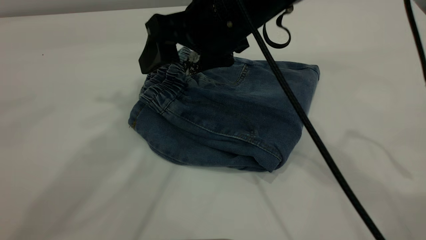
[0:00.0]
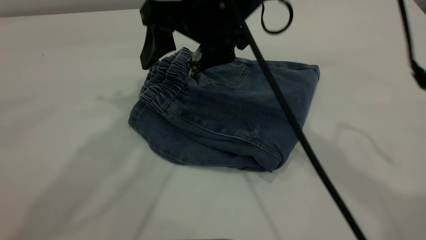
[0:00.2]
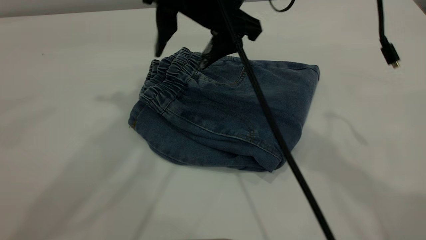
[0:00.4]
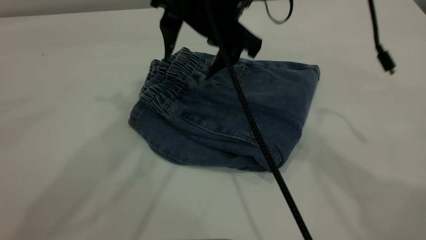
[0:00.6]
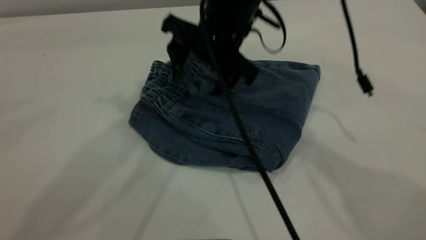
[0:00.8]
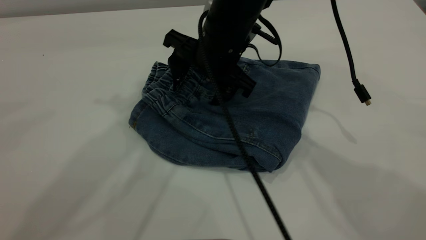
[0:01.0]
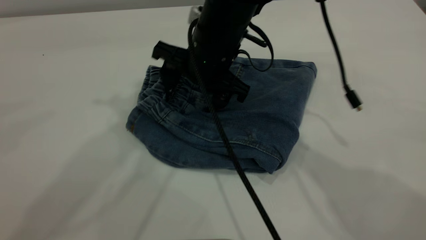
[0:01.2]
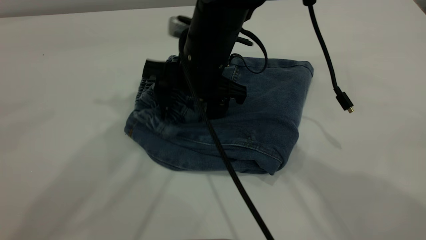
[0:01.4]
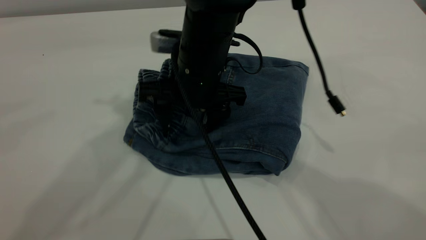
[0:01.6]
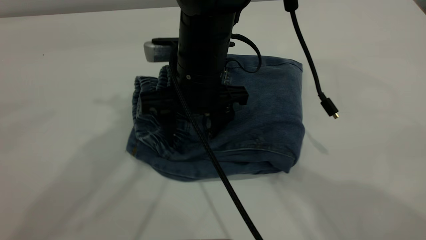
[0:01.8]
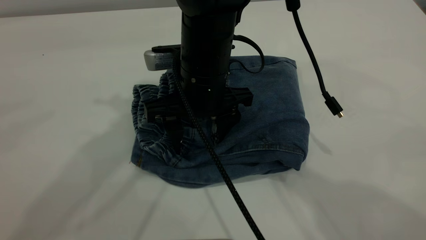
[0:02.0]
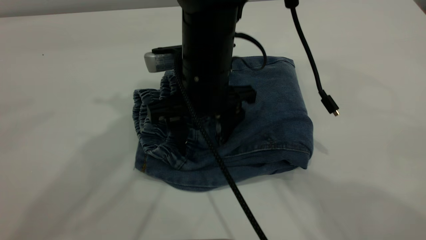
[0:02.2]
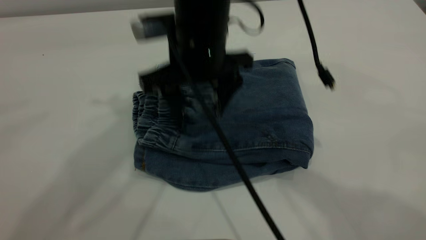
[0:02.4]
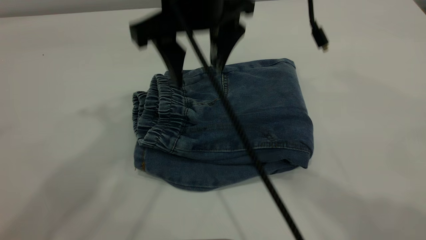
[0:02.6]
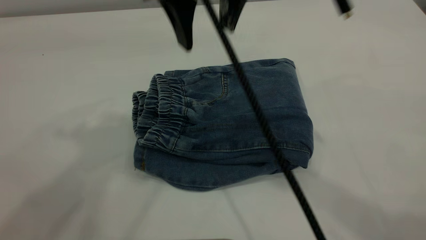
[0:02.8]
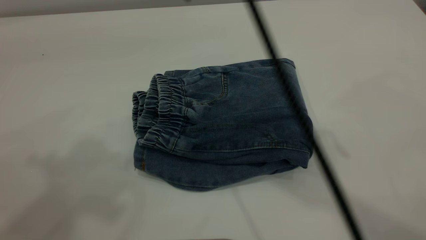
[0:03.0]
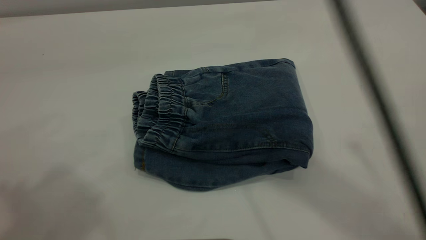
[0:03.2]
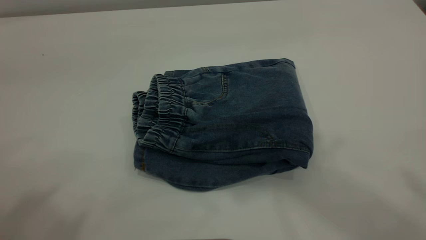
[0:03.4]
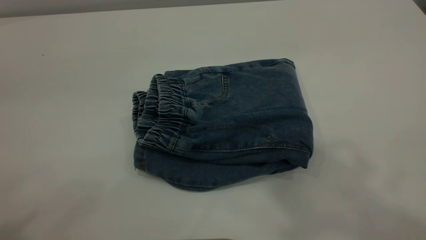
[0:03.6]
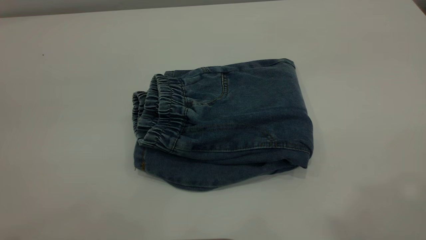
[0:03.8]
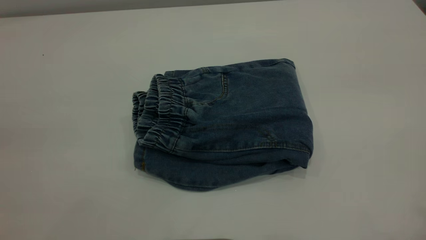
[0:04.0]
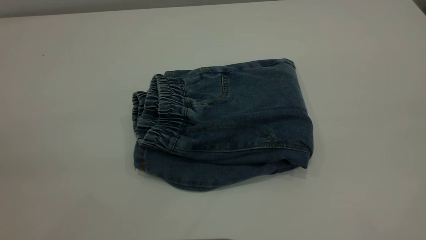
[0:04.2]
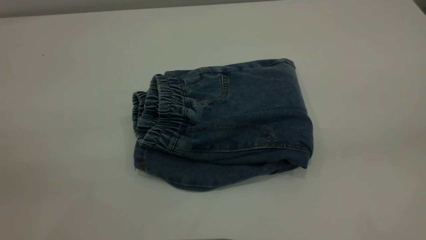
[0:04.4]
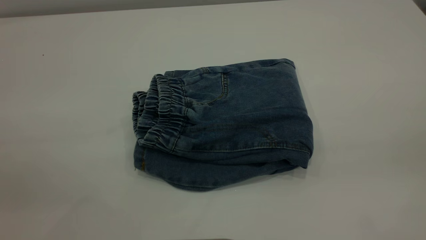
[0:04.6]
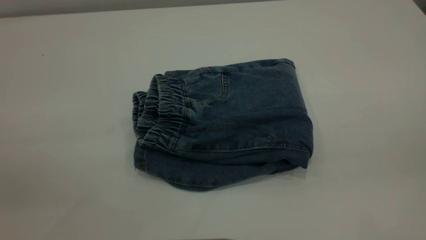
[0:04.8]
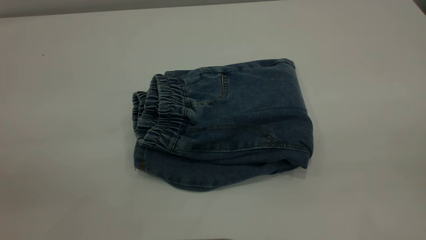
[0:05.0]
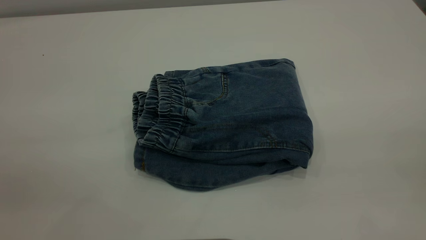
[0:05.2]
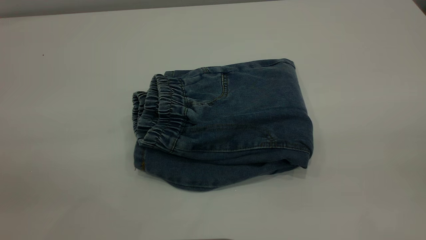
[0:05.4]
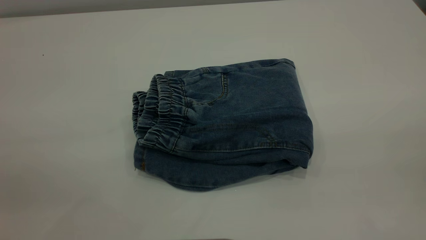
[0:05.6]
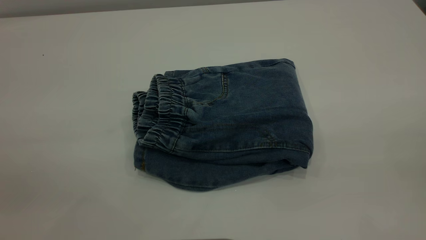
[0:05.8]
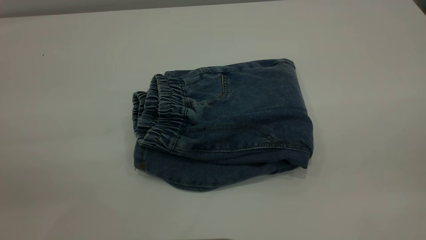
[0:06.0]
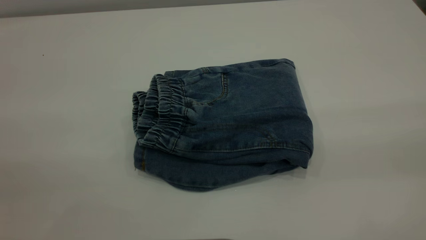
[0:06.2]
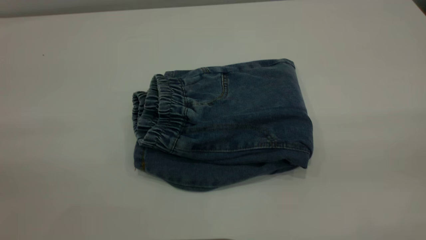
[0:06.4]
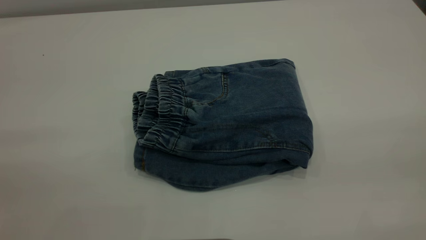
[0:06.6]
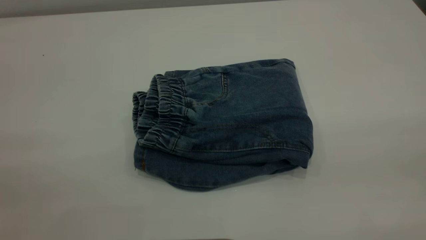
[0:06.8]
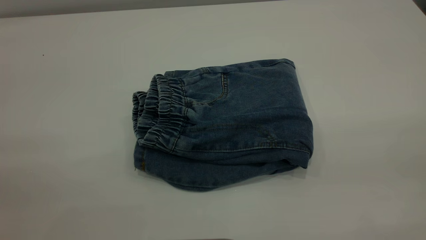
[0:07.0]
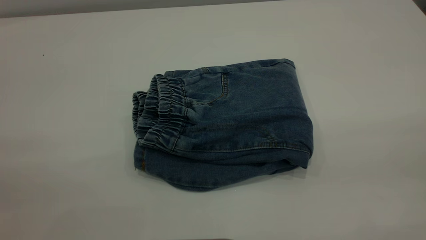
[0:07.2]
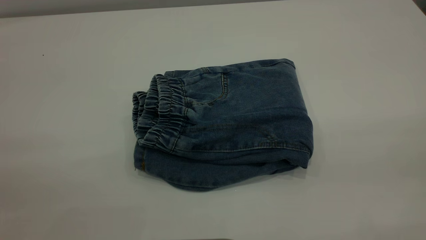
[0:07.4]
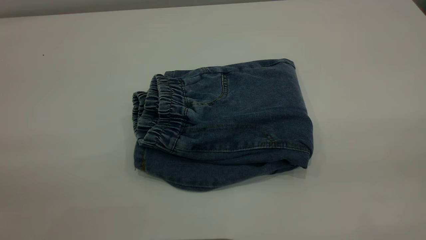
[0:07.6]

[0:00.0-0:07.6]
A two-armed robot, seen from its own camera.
0:00.0 to 0:01.6: The right gripper moves downward and to the left, approximately 10 cm.
0:01.6 to 0:03.0: The right gripper heads upward, covering some 25 cm; the left gripper travels backward, upward and to the left by some 20 cm.
0:03.0 to 0:04.6: The right gripper is displaced backward and to the right by some 35 cm, while the left gripper heads downward, backward and to the left, covering about 25 cm.

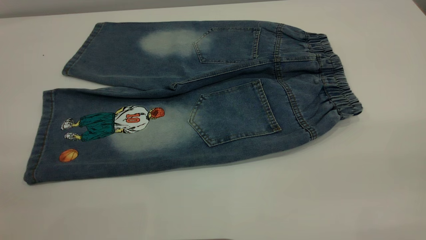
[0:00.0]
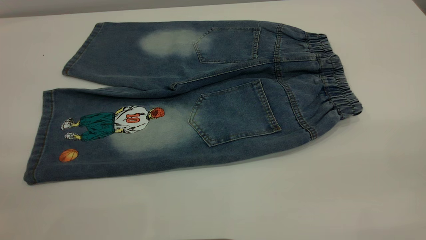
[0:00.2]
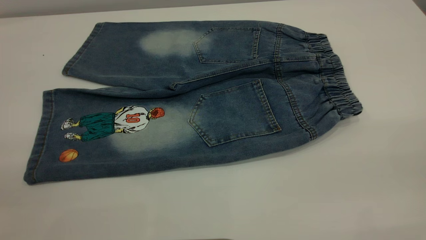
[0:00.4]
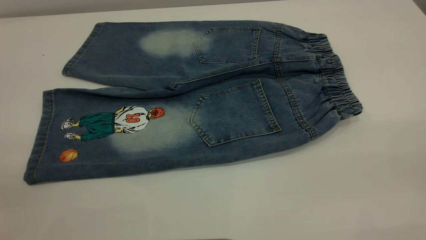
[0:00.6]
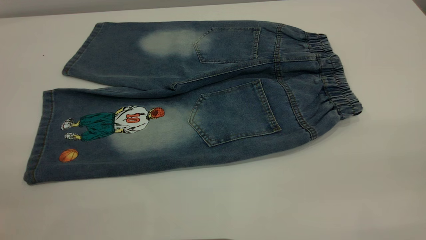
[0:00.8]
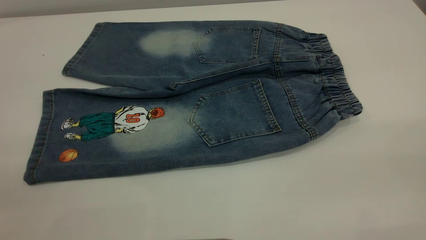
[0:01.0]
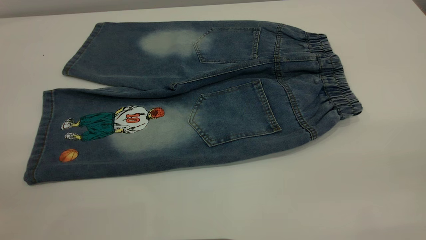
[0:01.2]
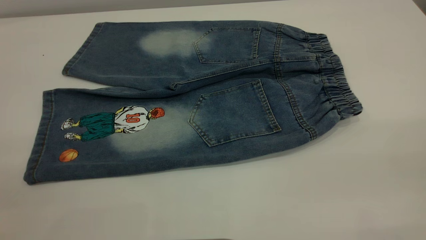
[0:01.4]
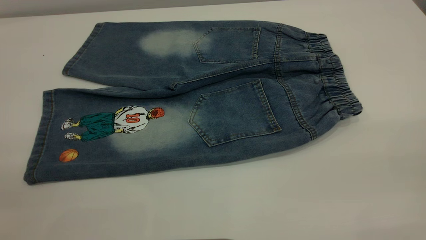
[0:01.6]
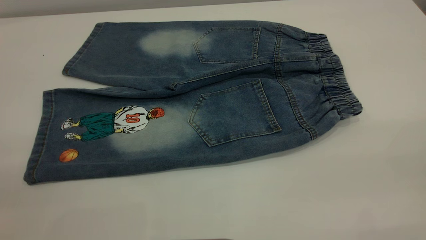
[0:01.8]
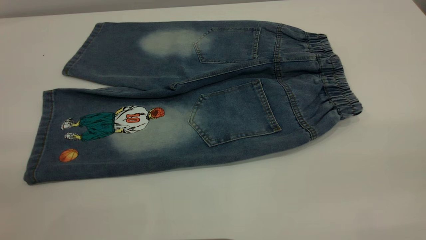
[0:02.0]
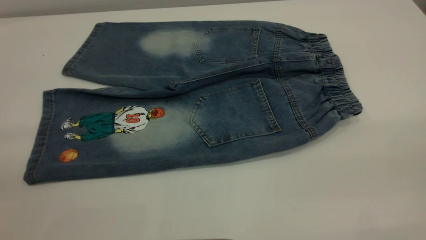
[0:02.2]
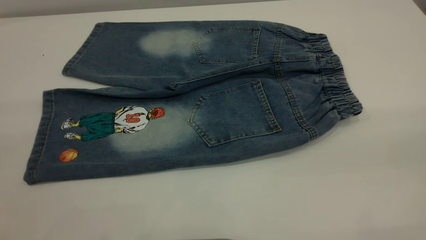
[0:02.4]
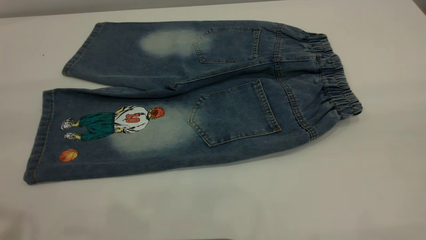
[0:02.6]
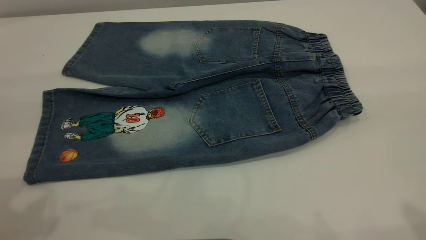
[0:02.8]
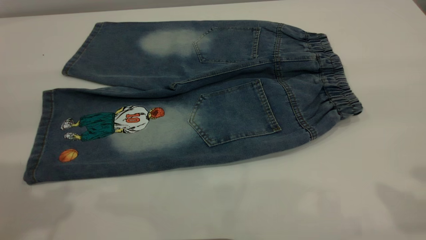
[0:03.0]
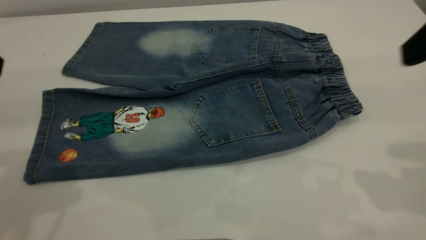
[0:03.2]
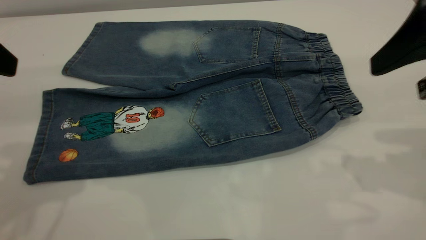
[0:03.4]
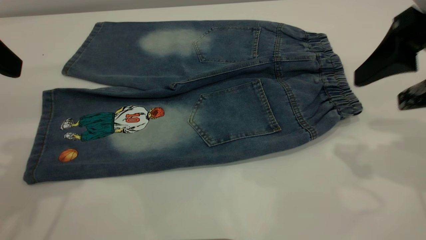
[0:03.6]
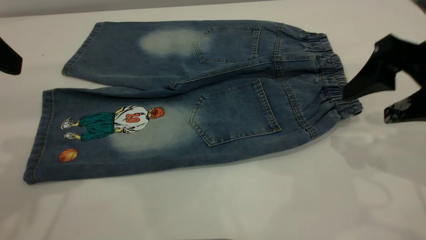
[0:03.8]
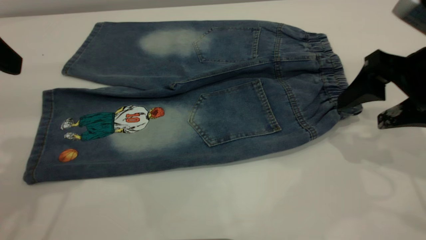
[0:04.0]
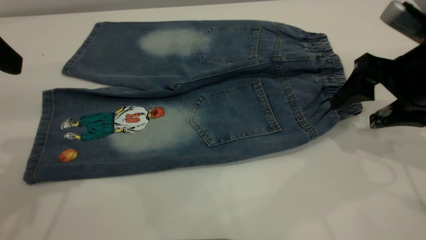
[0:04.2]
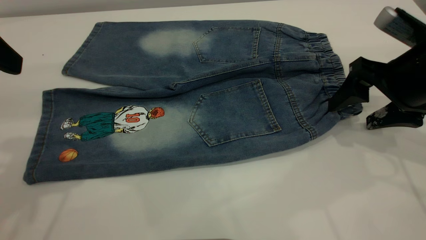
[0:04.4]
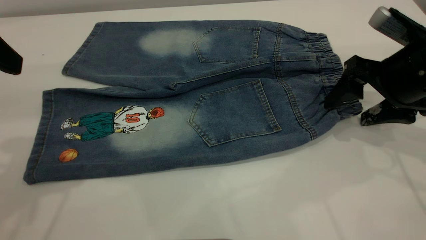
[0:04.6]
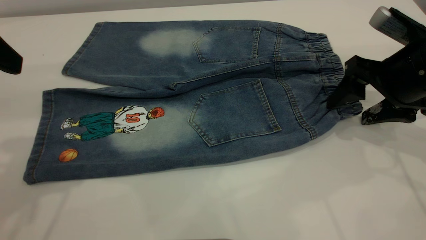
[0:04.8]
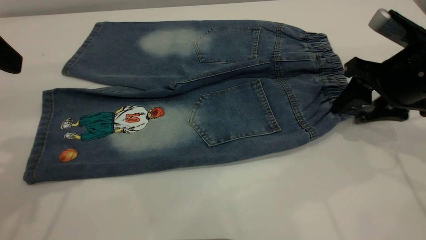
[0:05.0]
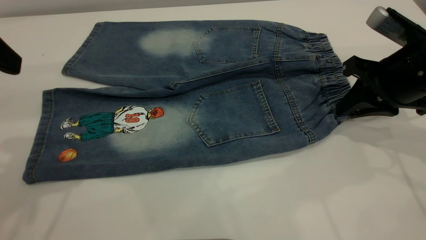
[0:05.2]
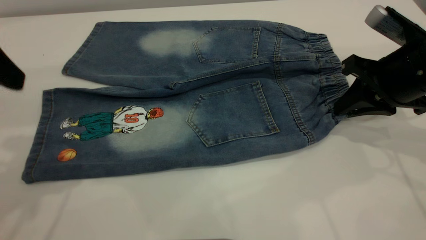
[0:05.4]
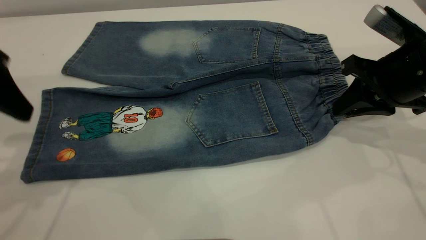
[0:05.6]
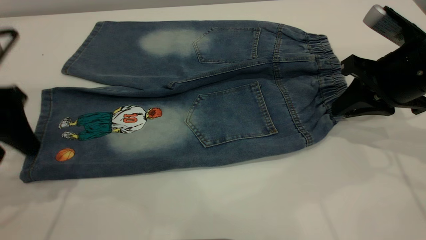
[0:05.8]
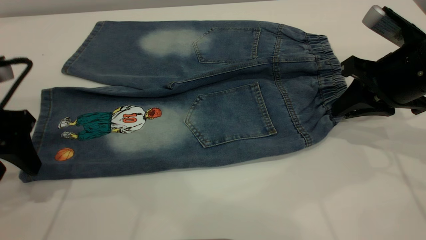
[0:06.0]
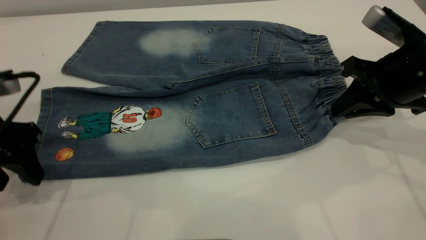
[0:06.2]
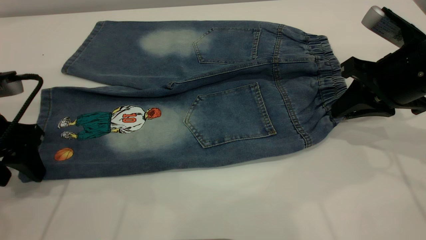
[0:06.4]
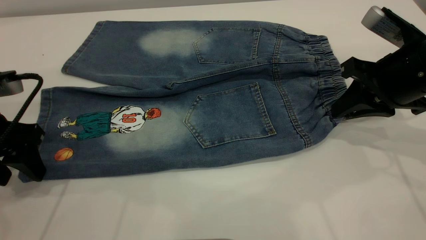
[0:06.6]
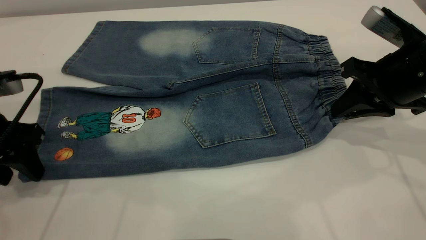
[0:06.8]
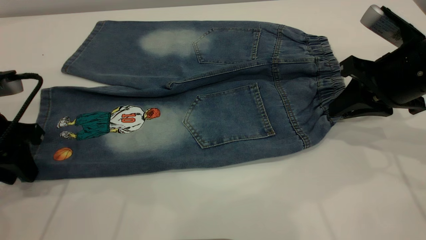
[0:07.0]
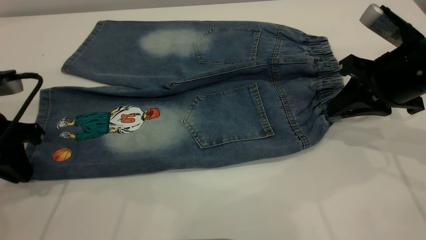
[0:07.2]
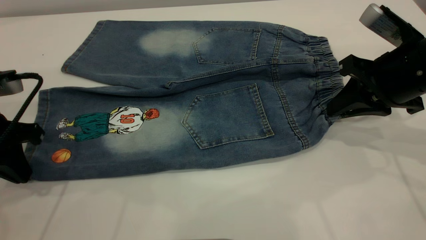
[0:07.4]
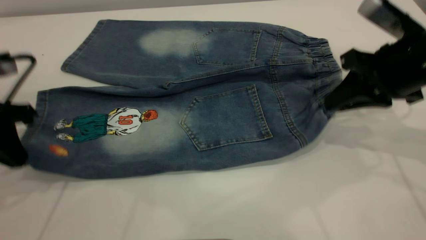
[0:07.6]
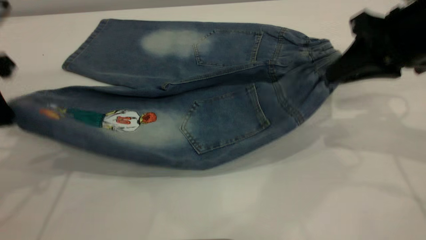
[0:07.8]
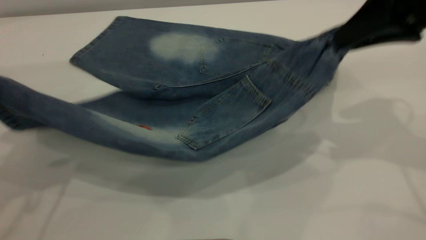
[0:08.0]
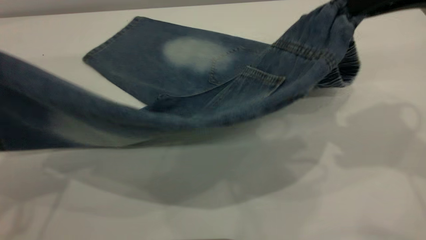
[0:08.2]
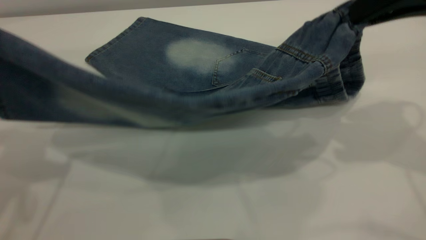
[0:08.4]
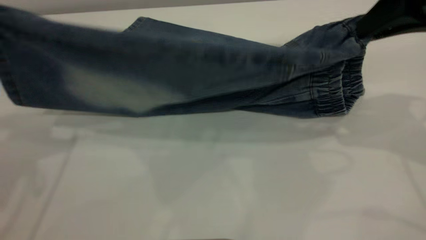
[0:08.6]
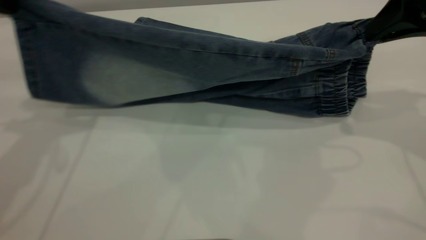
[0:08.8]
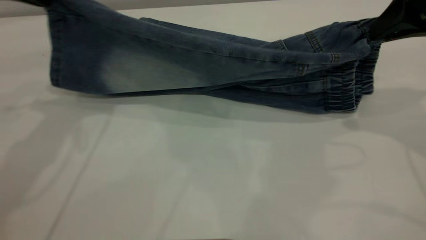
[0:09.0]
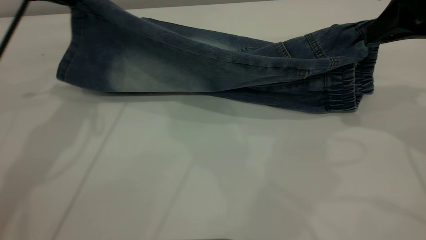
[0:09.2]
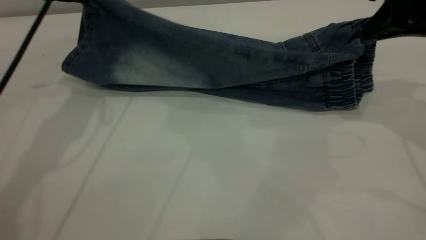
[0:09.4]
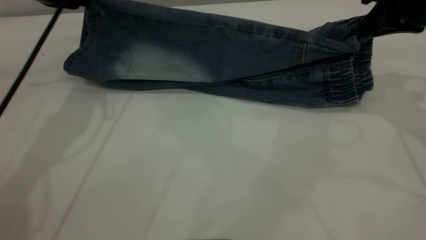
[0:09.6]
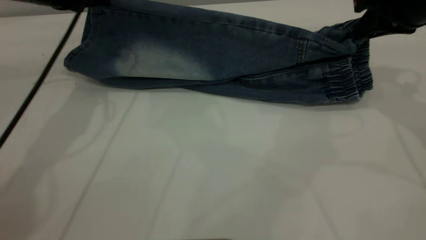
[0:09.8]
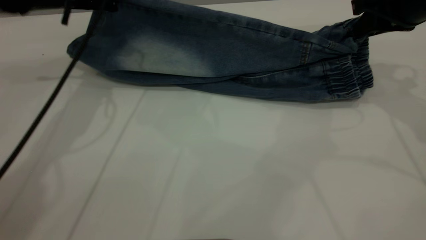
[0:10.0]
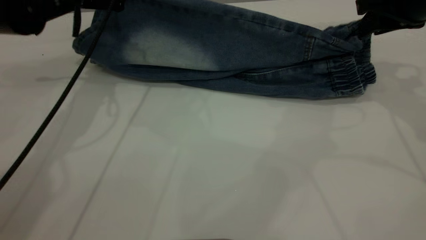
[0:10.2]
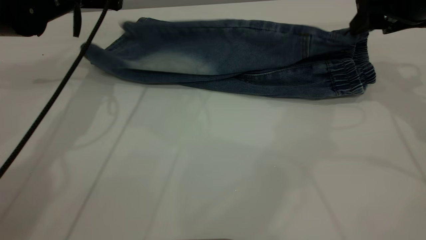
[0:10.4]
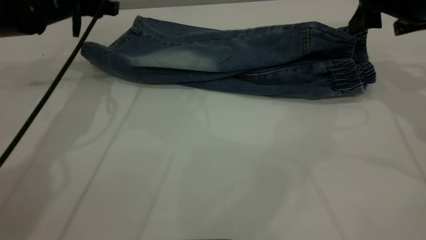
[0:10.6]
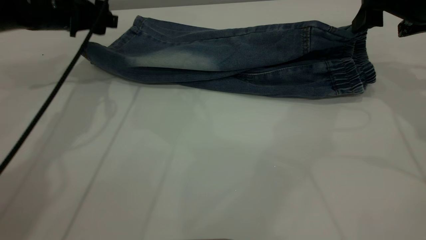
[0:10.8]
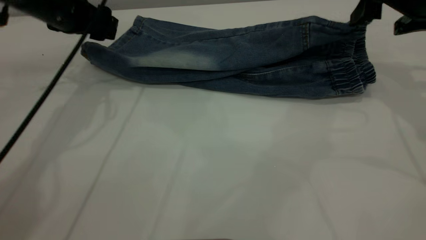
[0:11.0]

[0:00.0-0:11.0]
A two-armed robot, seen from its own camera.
0:00.0 to 0:01.6: Both grippers stay put.
0:01.6 to 0:03.2: The right gripper shifts approximately 20 cm forward.
0:03.2 to 0:04.8: The right gripper heads downward and forward, covering roughly 20 cm.
0:04.8 to 0:06.2: The left gripper travels downward by some 15 cm; the right gripper closes up.
0:06.2 to 0:07.8: The grippers both shift upward by approximately 10 cm. The left gripper closes.
0:07.8 to 0:09.4: The right gripper travels upward and back again, roughly 10 cm each way. The left gripper is displaced forward and to the right by some 15 cm.
0:09.4 to 0:11.0: The right gripper opens up. The left gripper moves about 5 cm, and opens up.
